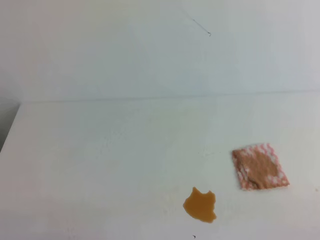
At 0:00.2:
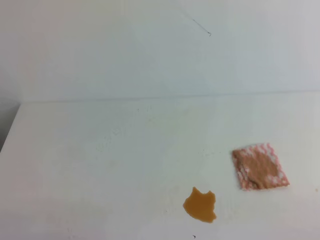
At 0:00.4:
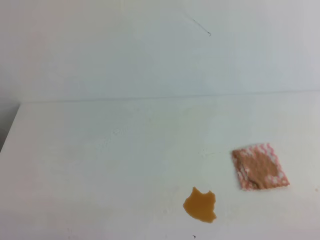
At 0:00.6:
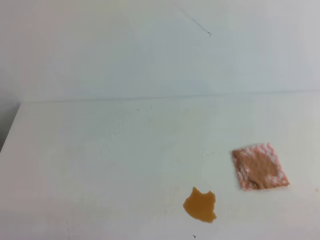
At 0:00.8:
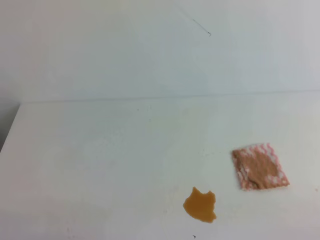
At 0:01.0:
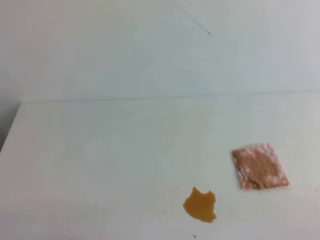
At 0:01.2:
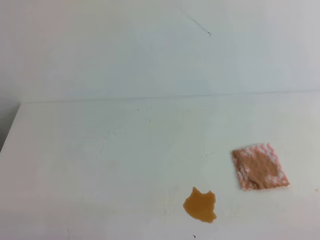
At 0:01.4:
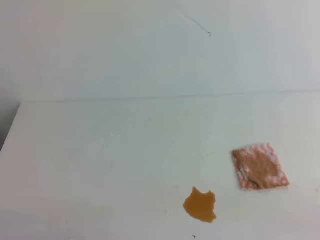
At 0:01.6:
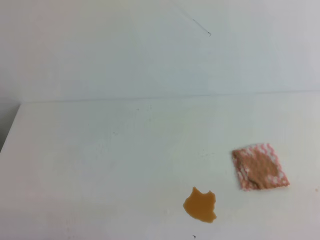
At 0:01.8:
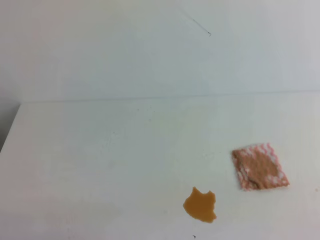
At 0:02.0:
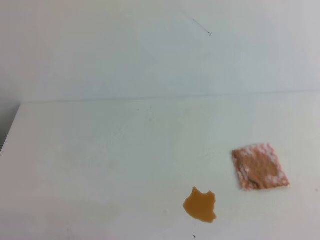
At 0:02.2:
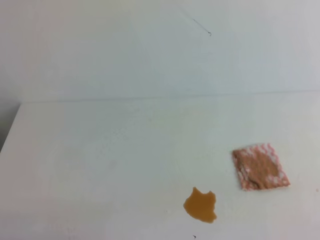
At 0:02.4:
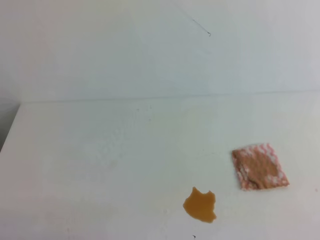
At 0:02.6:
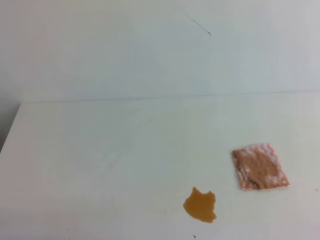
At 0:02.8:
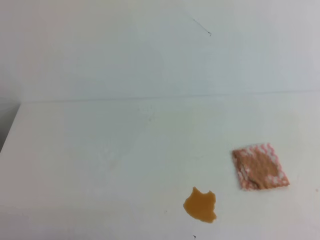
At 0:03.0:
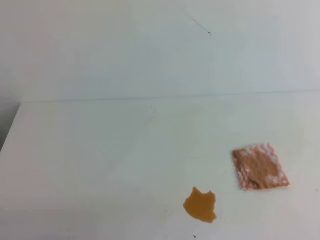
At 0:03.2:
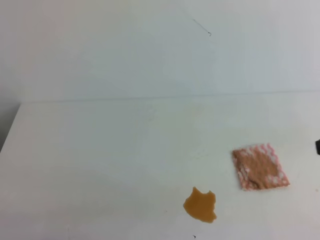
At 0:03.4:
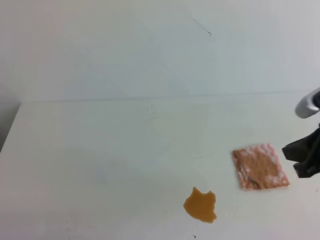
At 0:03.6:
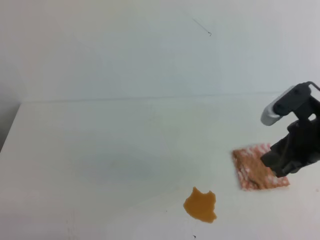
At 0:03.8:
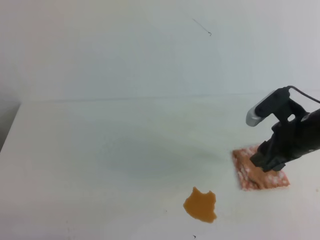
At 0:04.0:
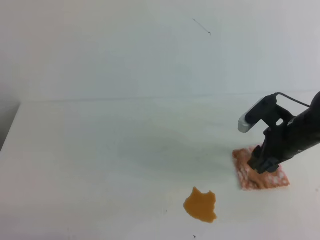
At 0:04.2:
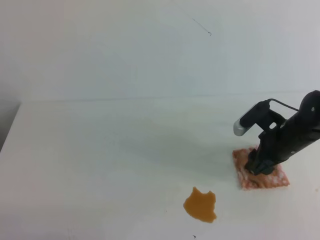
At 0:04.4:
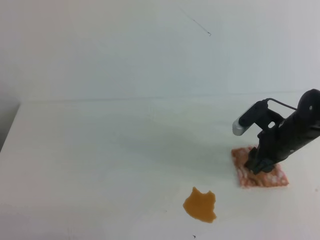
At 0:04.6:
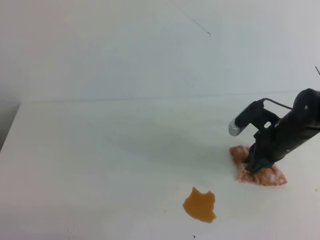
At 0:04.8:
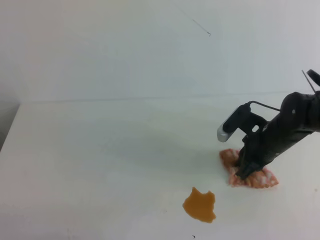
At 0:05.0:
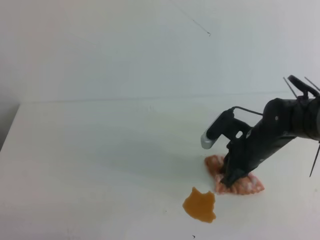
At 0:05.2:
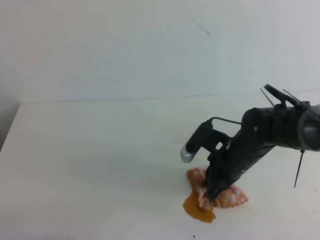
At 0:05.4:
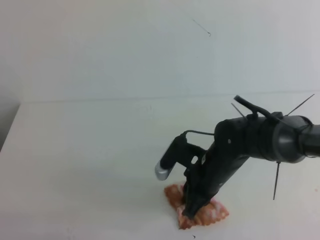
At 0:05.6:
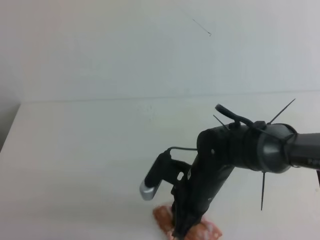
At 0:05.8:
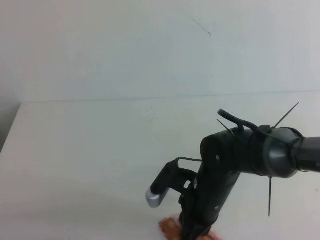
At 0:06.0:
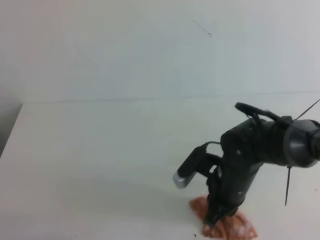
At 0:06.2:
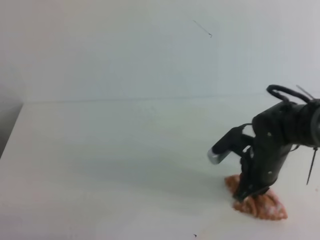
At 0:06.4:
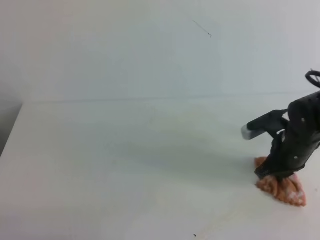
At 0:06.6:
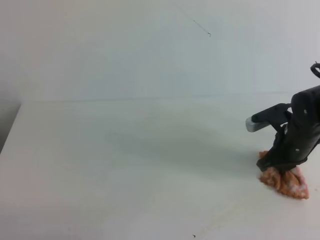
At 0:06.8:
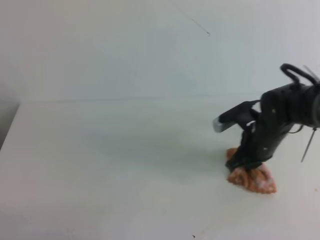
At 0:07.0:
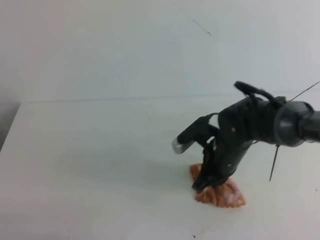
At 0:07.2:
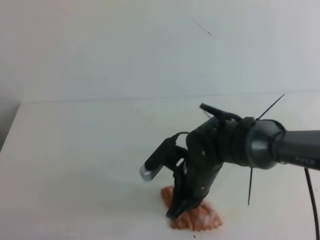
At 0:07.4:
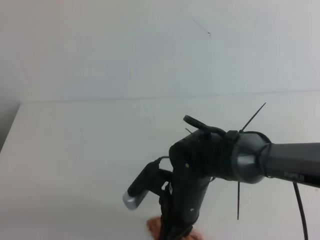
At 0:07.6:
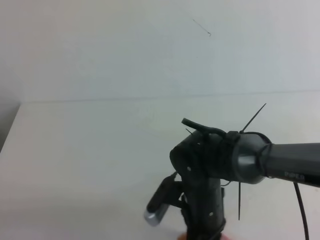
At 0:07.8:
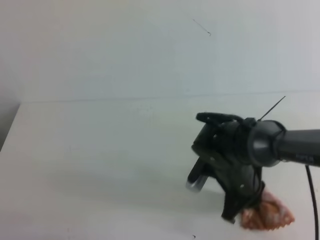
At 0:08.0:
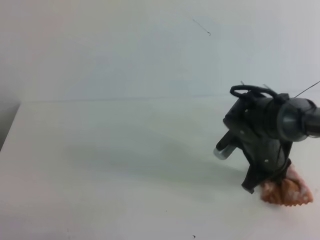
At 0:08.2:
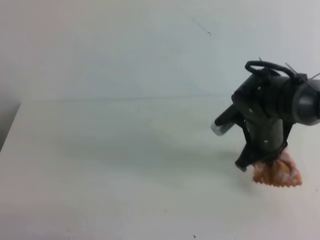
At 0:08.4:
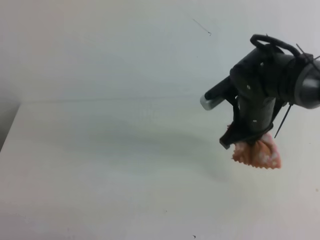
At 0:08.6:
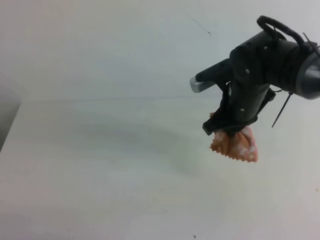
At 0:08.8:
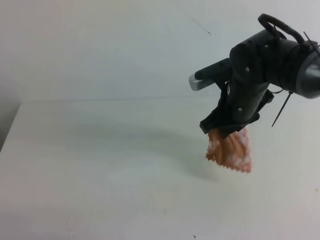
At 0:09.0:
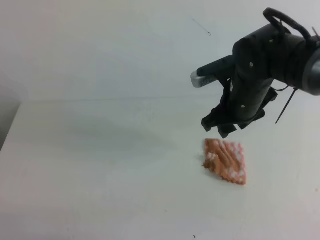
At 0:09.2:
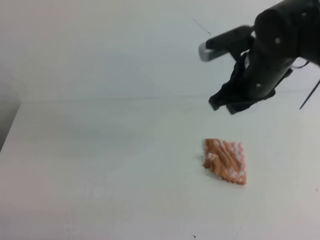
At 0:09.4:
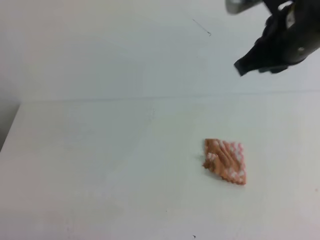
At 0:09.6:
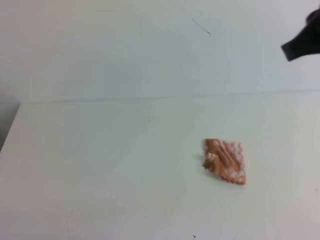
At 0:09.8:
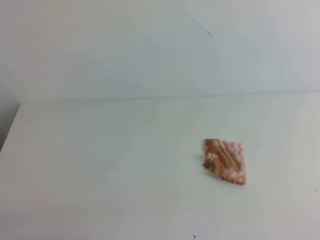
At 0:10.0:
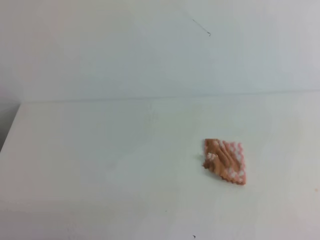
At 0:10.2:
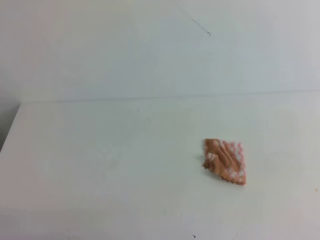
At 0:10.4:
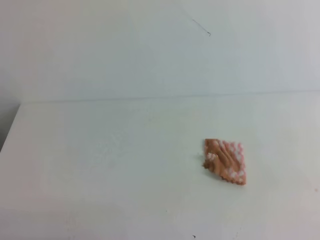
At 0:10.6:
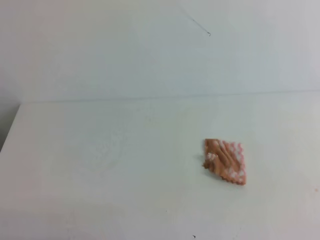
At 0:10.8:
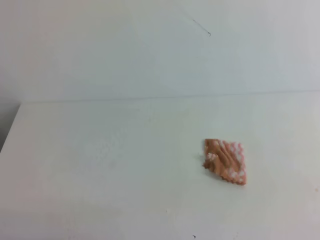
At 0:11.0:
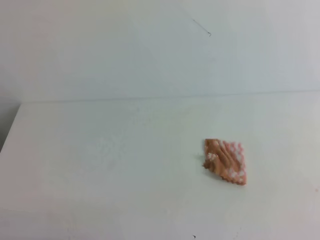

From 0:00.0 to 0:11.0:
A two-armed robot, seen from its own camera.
From 0:03.2 to 0:04.8: The right gripper is displaced downward, forward and to the left by approximately 25 cm, and opens and closes again.
From 0:04.8 to 0:06.2: The right gripper travels to the left and back again, approximately 15 cm each way.
From 0:06.2 to 0:07.8: The right gripper moves left and right over some 20 cm, changing direction 2 times.
From 0:07.8 to 0:09.4: The right gripper heads upward, covering some 25 cm, and opens, then closes once more.
From 0:09.4 to 0:11.0: The right gripper is displaced backward and to the right by about 30 cm.
